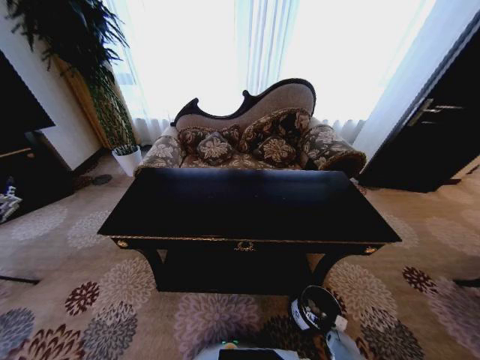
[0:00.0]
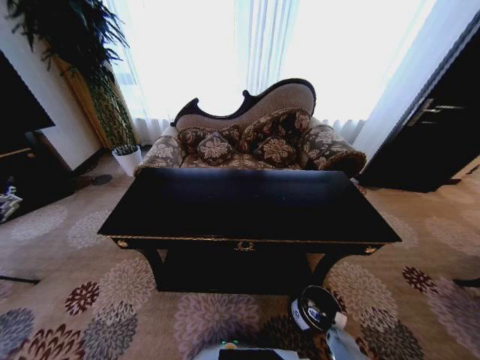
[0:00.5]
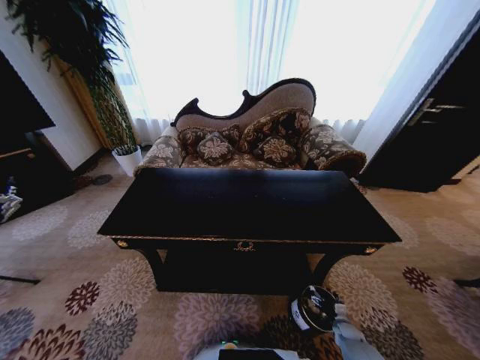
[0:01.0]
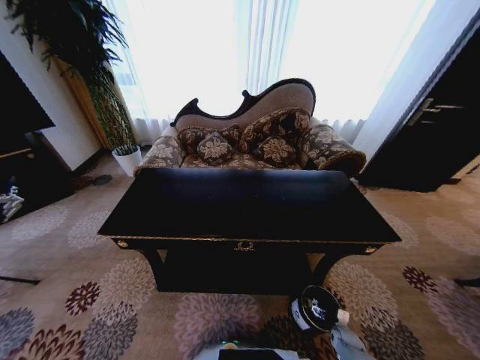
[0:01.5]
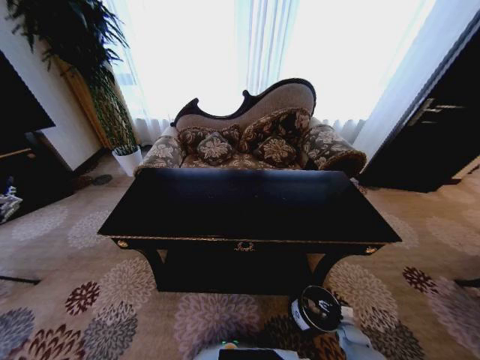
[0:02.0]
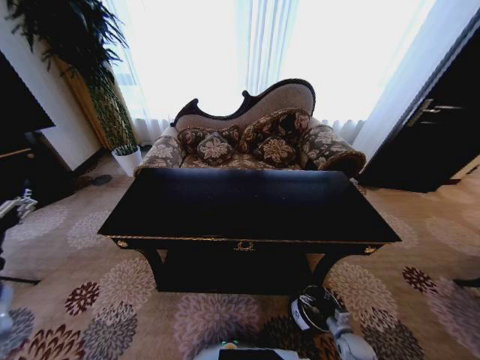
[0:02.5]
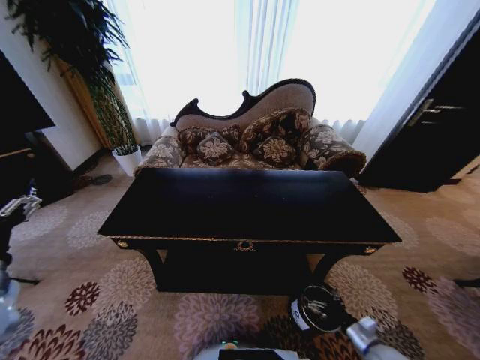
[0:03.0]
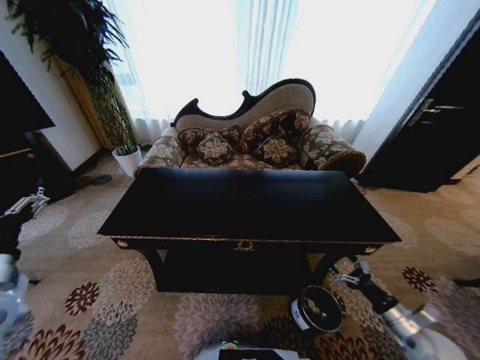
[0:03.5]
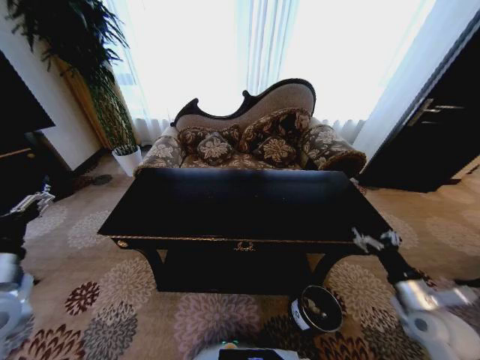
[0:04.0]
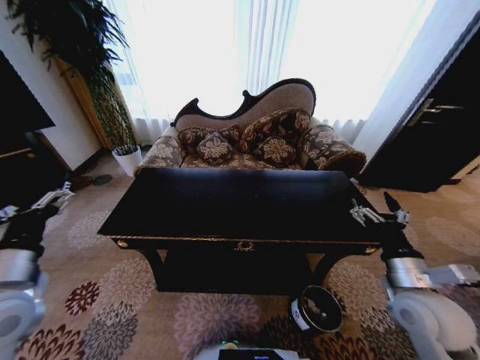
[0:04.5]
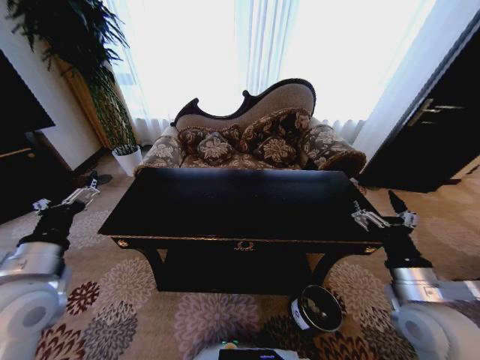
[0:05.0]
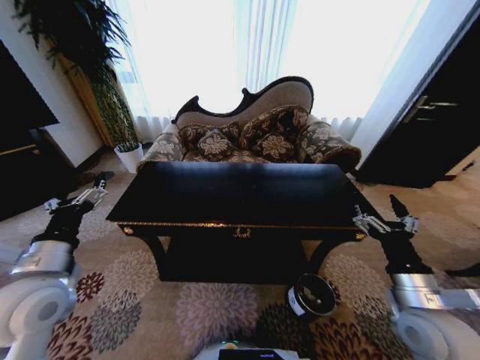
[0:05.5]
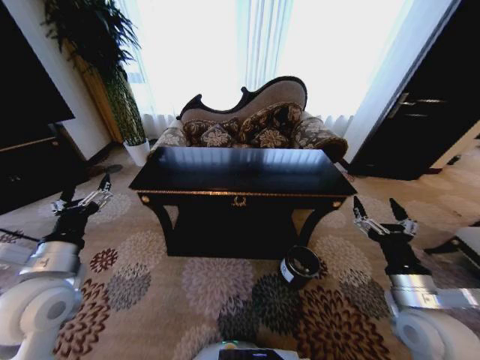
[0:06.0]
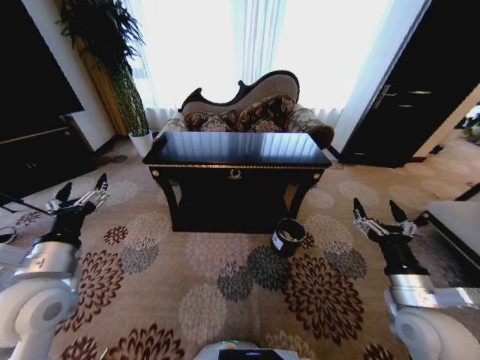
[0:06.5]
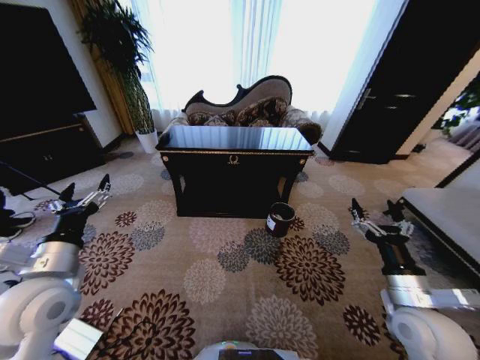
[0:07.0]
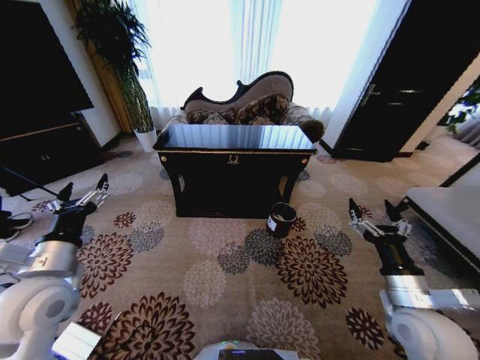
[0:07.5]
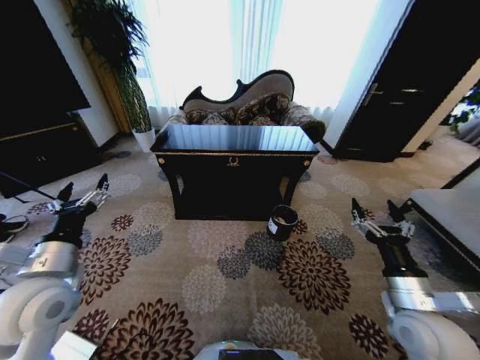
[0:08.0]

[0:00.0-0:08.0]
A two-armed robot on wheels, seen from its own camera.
Task of the whole recording: Move to the front of the table and place the trash on the table into the trash bin.
0:02.0 to 0:04.0: The right gripper heads upward, covering approximately 35 cm.
0:04.0 to 0:06.0: The right gripper heads to the left and upward, covering about 10 cm, while the left gripper goes some 5 cm to the right.

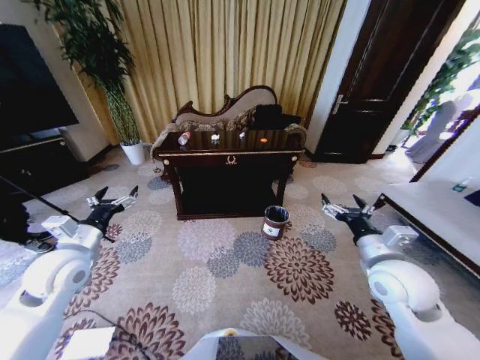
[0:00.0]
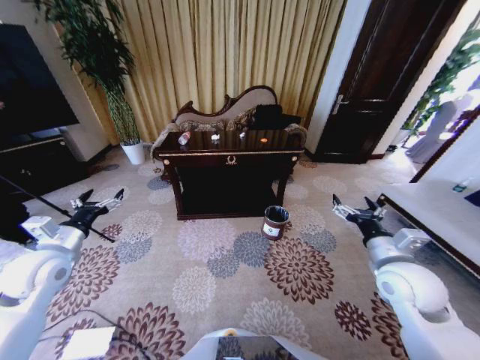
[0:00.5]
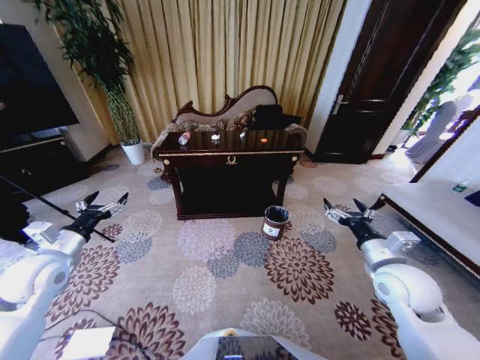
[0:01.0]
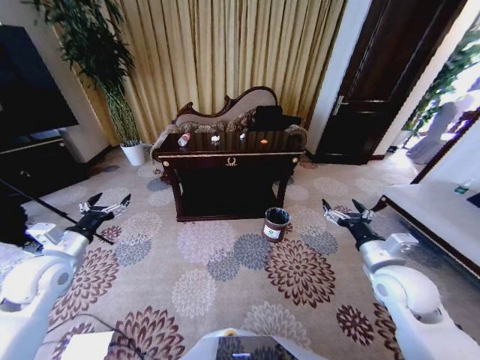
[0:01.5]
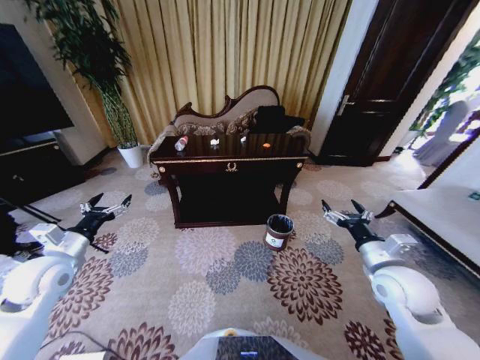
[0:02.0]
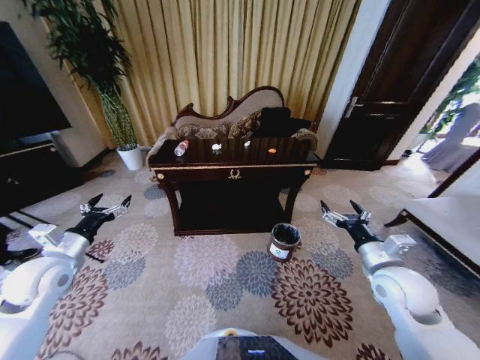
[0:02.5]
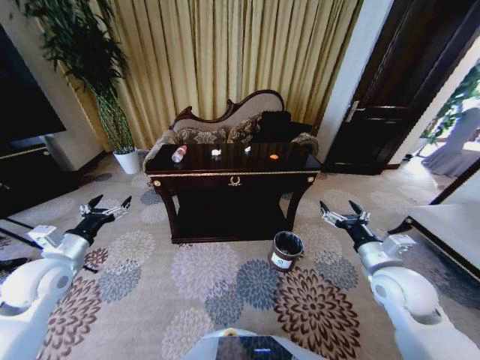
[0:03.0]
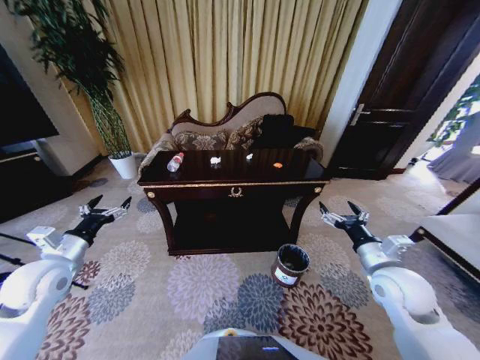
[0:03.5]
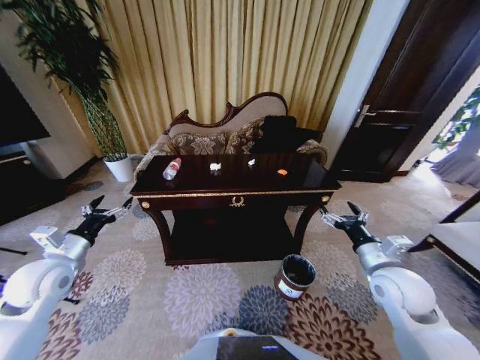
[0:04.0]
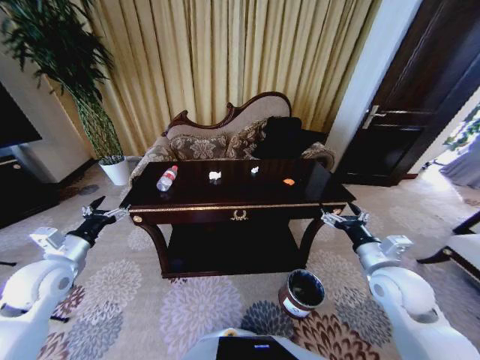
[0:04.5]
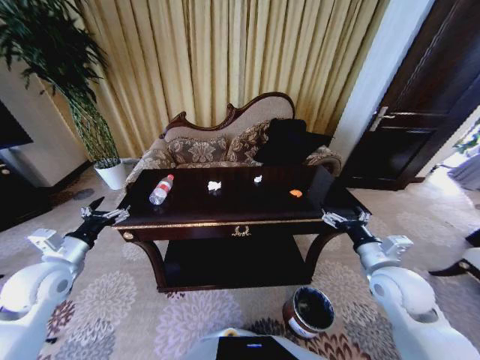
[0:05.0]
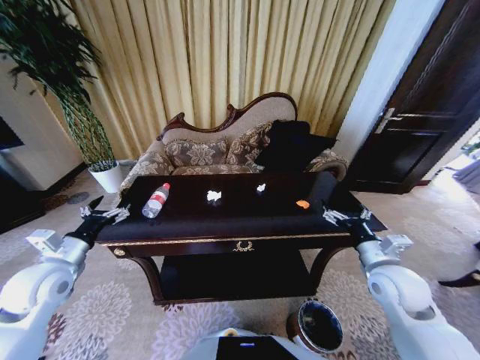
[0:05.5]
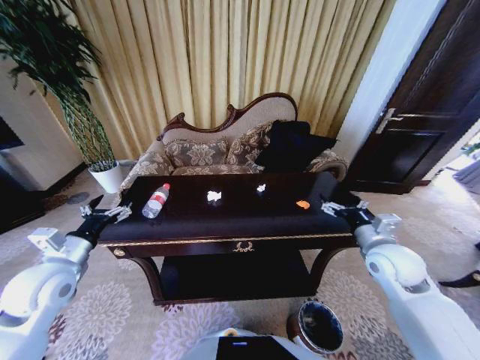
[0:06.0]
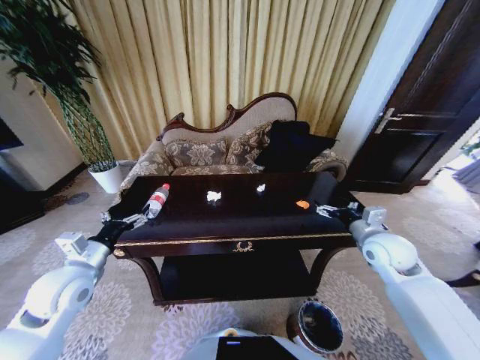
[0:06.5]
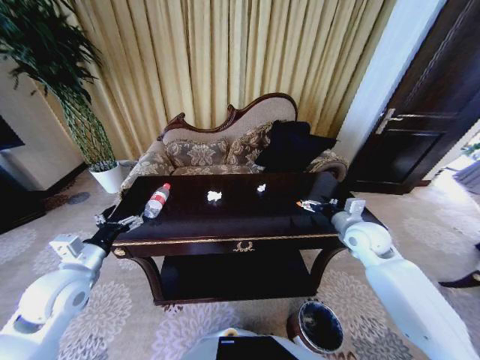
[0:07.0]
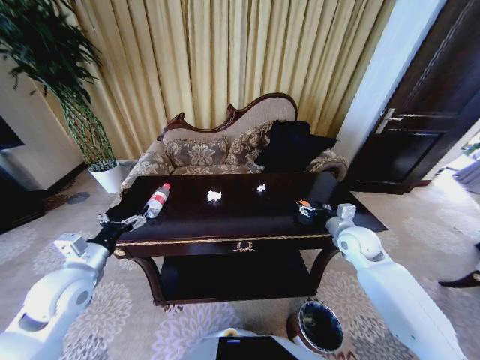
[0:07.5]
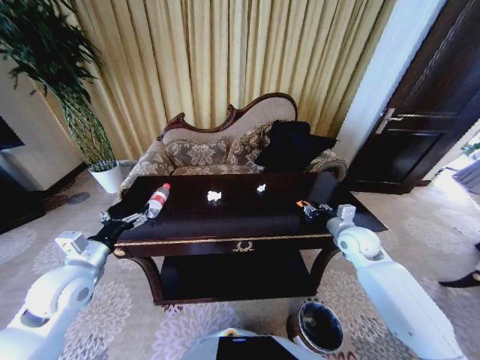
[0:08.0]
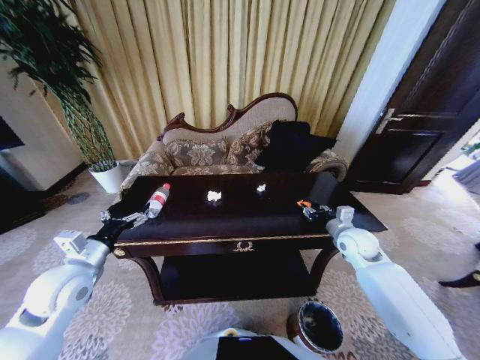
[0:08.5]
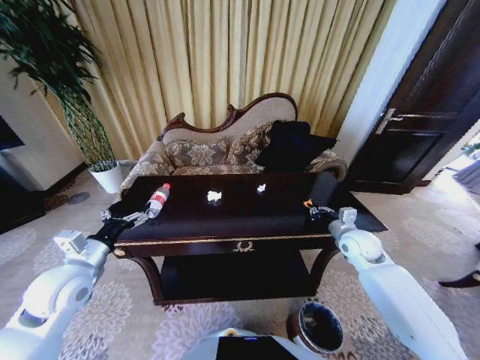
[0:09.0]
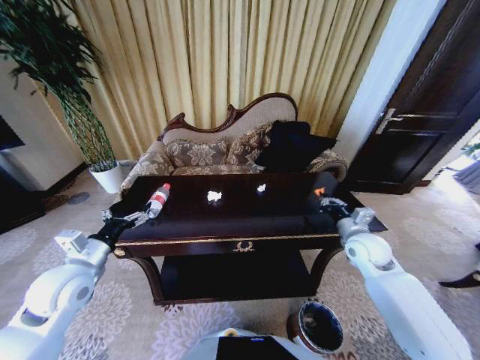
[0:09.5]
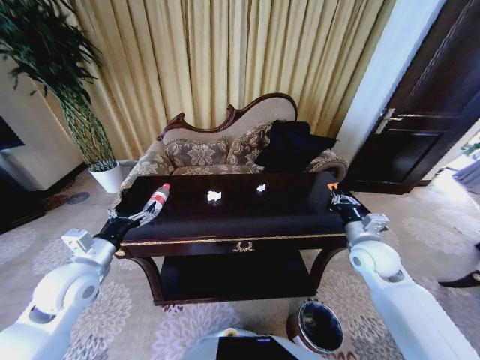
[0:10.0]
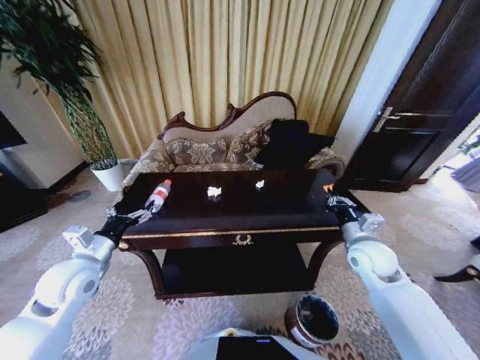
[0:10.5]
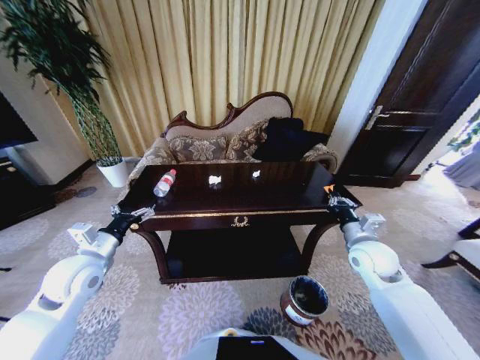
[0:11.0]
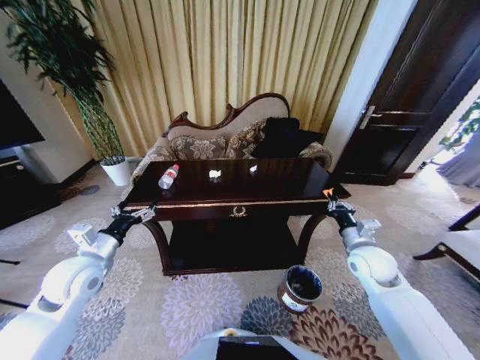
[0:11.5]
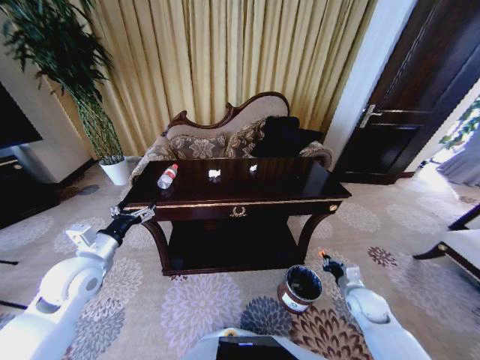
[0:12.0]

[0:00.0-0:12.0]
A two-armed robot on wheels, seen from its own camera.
Task of the whole recording: Move to the front of the table and place the trash on the table into the trash bin.
0:04.0 to 0:06.0: The right gripper shifts by about 5 cm.
0:06.0 to 0:08.0: The right gripper heads forward and downward, covering about 10 cm, and closes.
0:08.0 to 0:10.0: The right gripper heads backward, covering approximately 5 cm, and closes up.
0:10.0 to 0:12.0: The right gripper heads downward and backward, covering some 20 cm.

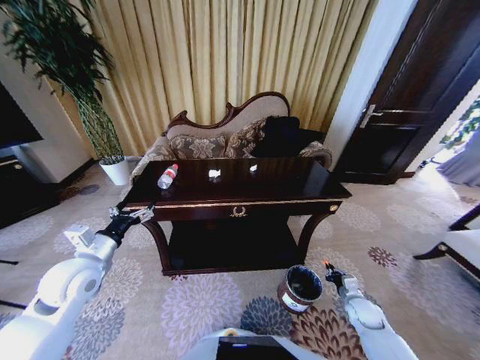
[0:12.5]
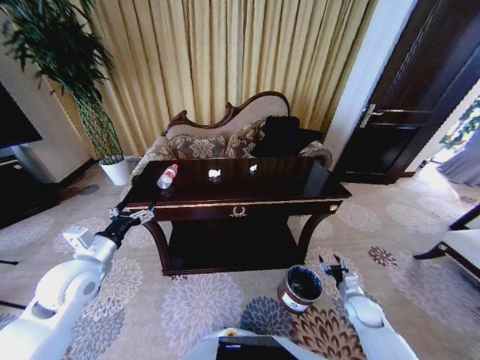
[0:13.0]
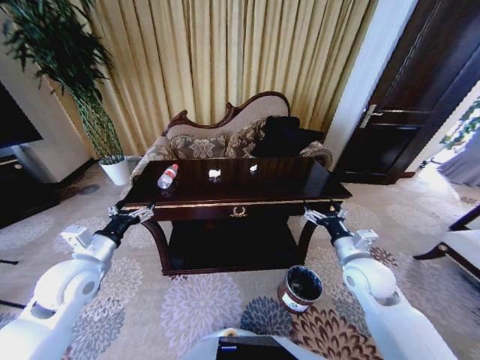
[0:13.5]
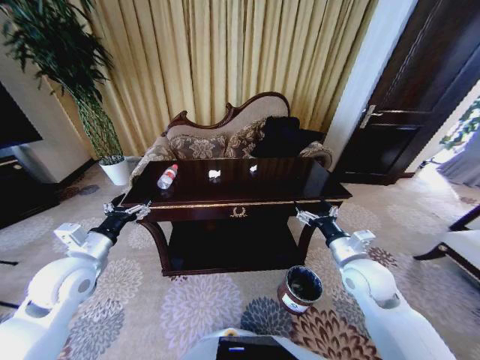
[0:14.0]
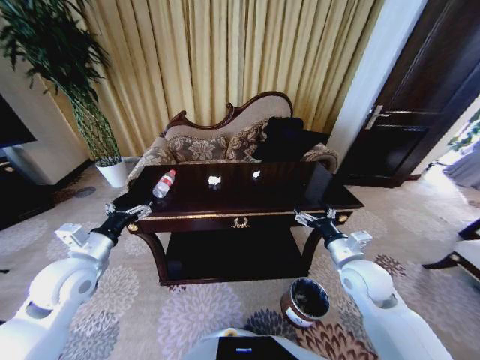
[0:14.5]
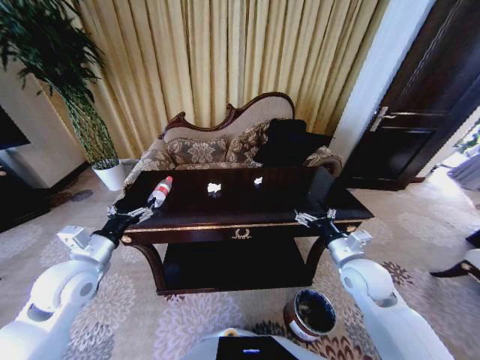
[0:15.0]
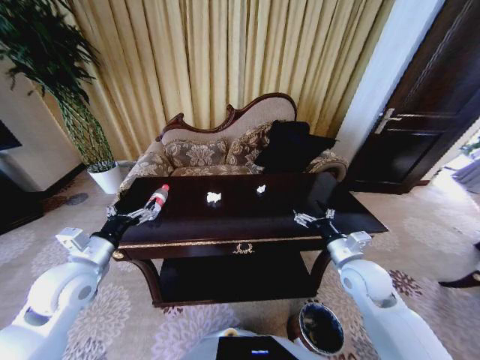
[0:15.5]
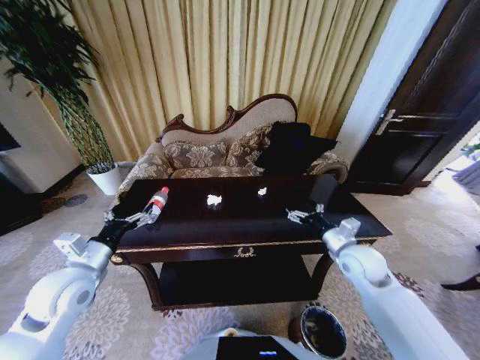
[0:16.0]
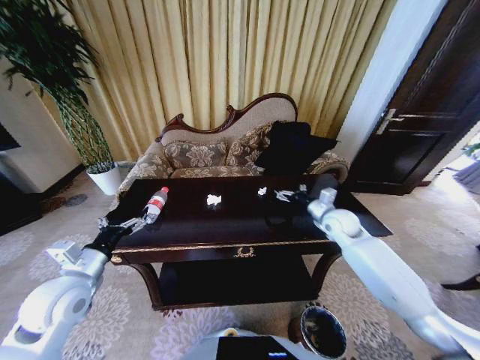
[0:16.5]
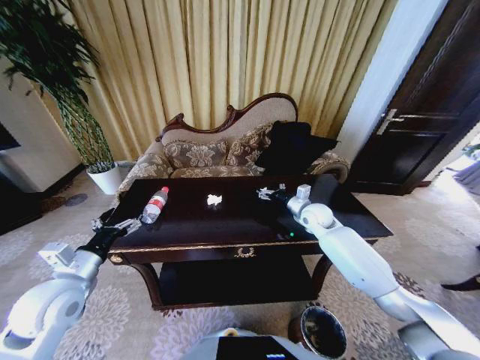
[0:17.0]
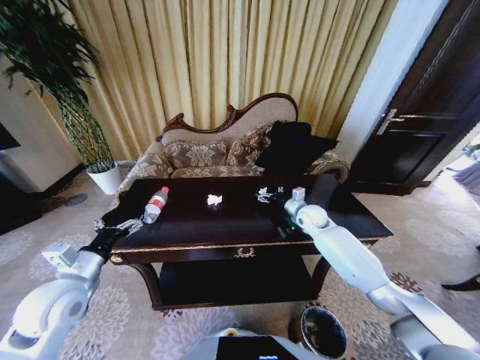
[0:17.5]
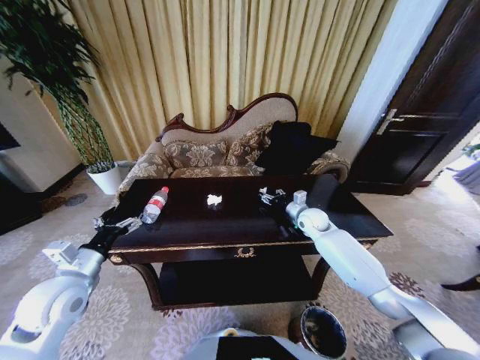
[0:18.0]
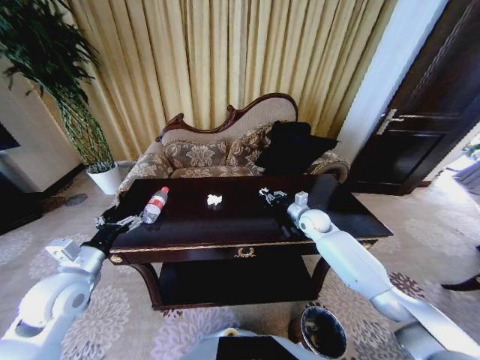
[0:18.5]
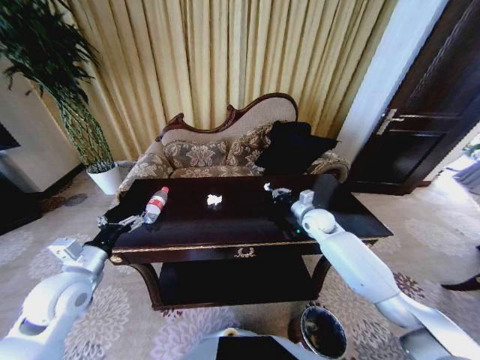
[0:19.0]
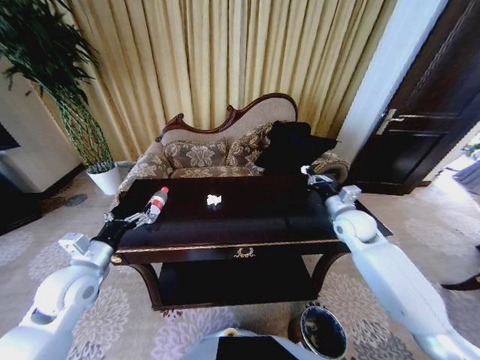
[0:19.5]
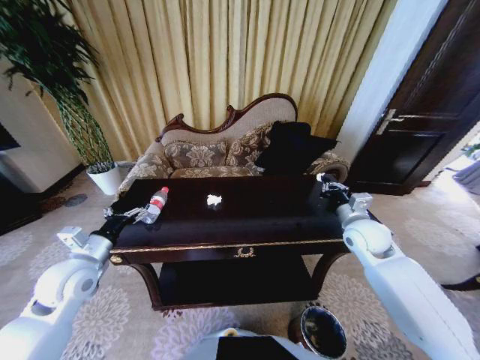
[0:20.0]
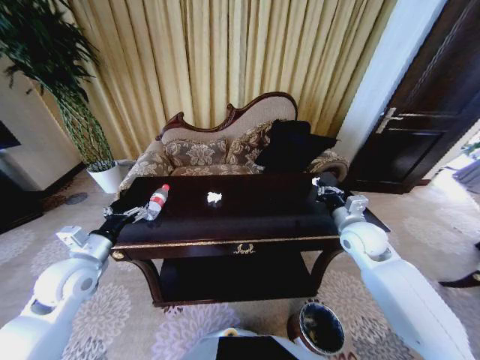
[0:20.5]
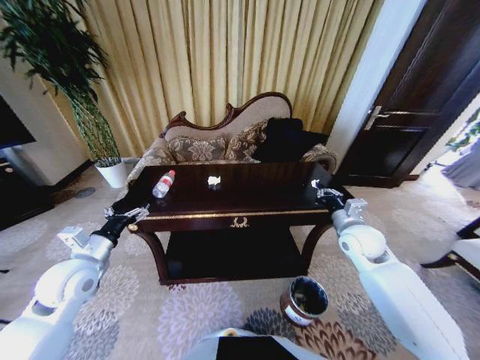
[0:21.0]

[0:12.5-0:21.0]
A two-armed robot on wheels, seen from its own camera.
Task of the whole recording: Move to the front of the table and place the trash on the table into the trash bin.
0:12.5 to 0:14.5: The right gripper heads upward and to the left, covering some 25 cm, and opens up.
0:14.5 to 0:16.5: The right gripper is displaced forward by about 15 cm.
0:16.5 to 0:19.0: The right gripper moves approximately 5 cm, and closes its fingers.
0:19.0 to 0:21.0: The right gripper moves backward and upward, some 15 cm.
